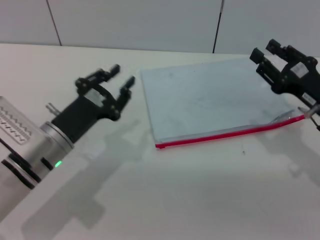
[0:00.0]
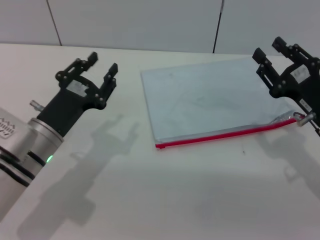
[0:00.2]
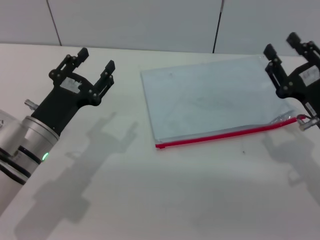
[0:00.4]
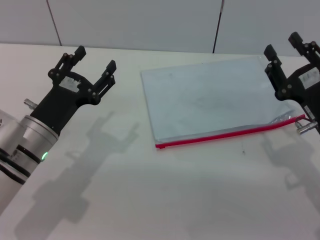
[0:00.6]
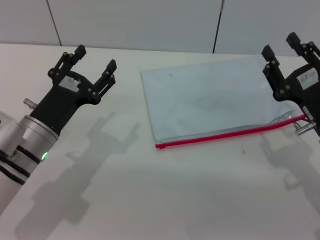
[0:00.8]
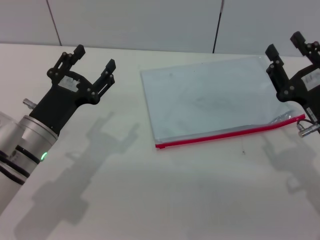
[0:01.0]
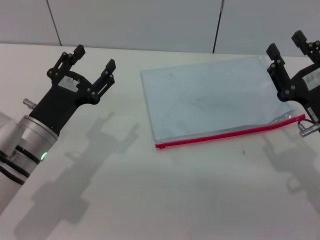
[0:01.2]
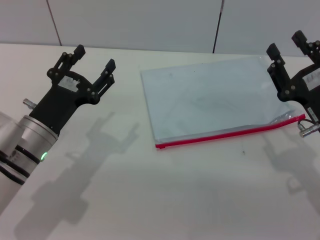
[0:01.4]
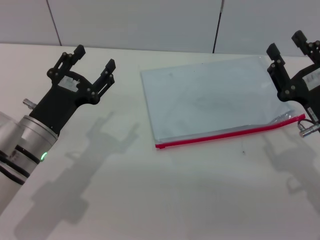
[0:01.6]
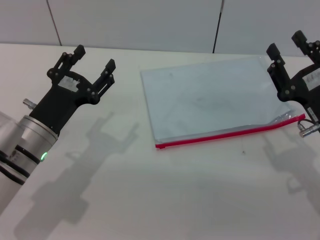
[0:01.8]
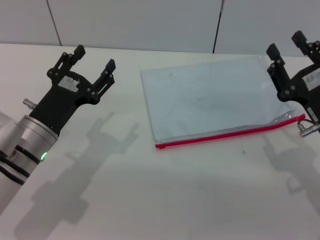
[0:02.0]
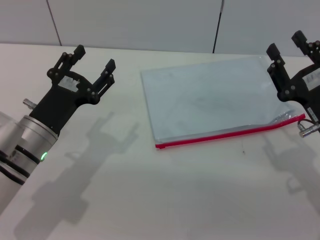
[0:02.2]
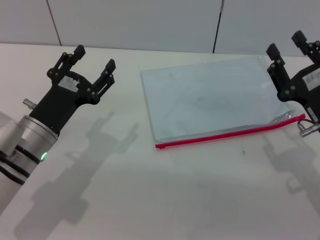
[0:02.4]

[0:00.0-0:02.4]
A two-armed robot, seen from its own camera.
0:00.0 to 0:01.2: The right gripper moves about 5 cm, while the left gripper opens up.
0:01.2 to 0:02.4: Neither gripper changes place.
